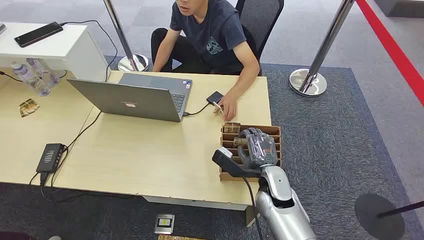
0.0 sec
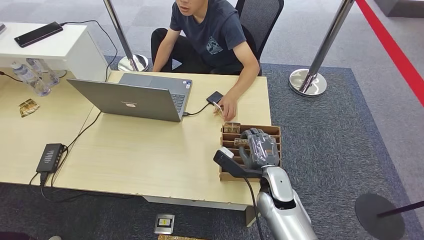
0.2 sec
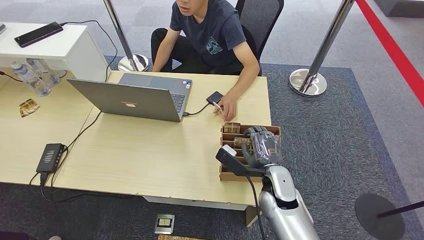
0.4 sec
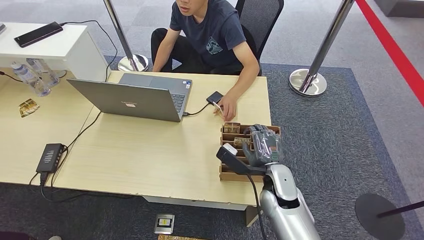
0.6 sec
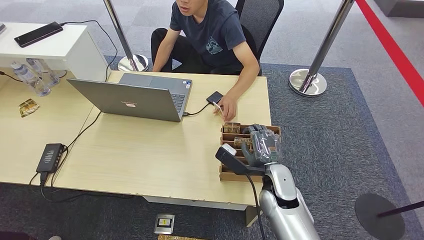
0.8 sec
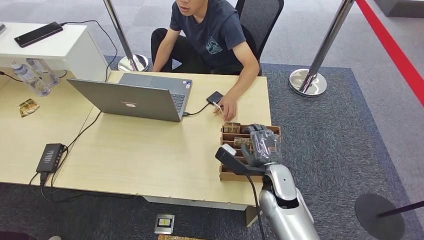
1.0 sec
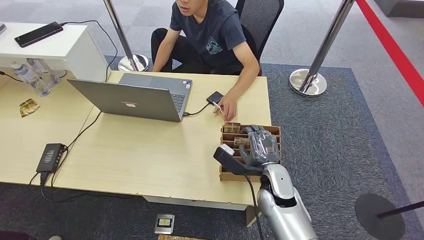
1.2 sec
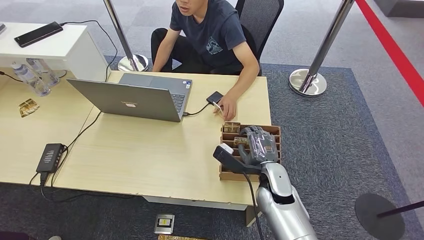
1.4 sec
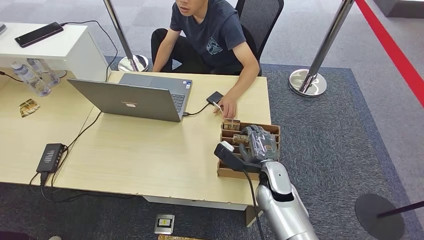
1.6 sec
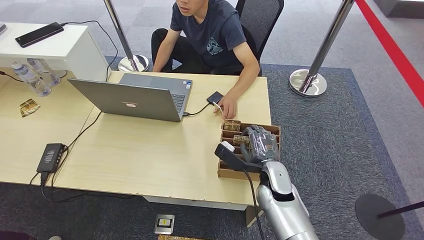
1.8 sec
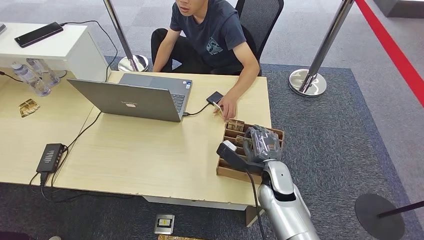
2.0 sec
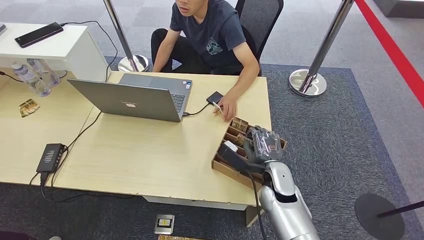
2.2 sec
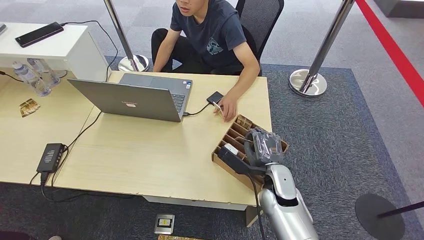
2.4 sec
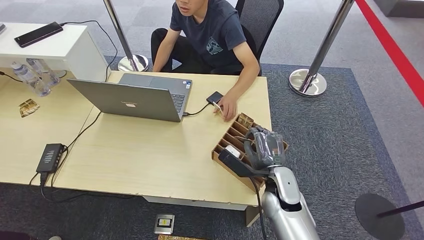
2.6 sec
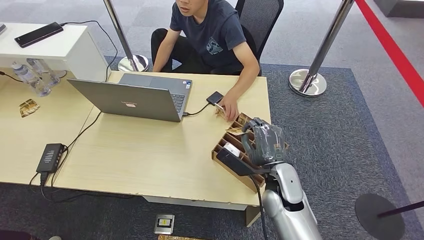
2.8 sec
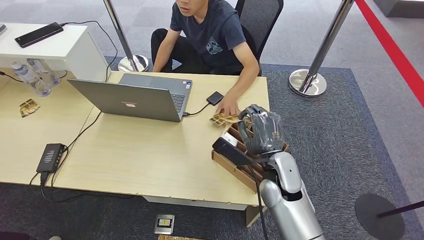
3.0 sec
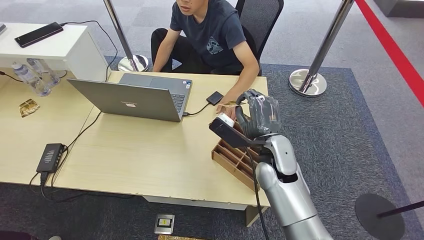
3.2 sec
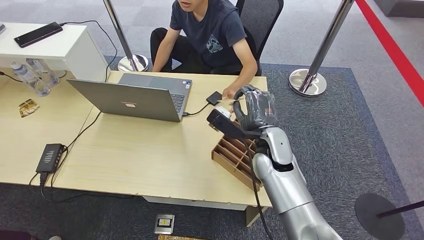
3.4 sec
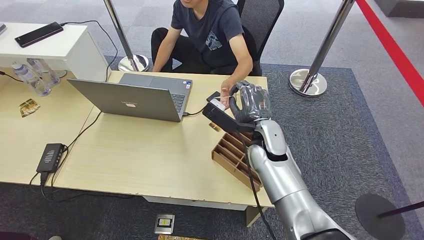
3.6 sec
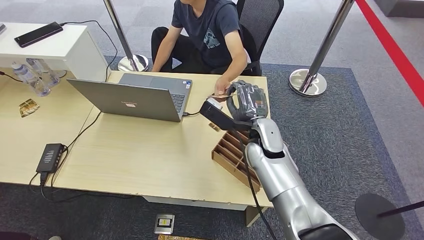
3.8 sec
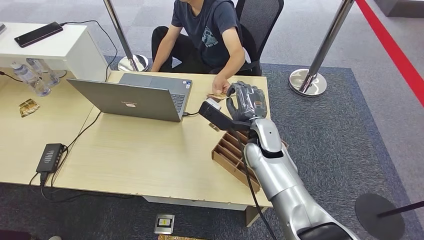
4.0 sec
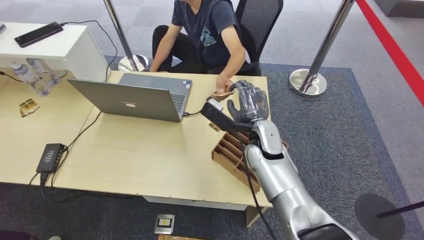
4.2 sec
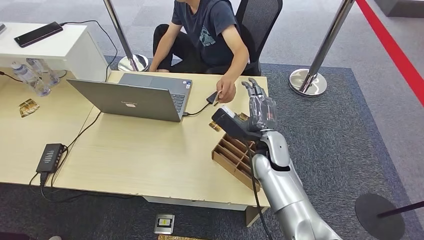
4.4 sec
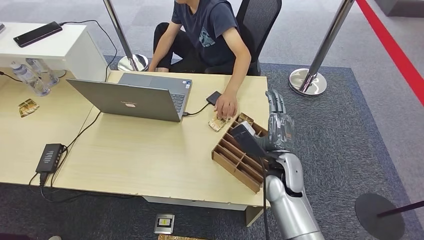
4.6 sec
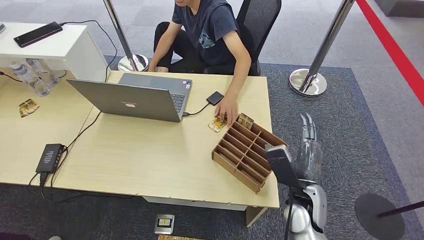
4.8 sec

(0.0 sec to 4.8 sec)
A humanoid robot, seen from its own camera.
Step, 0.0 sec - 3.0 sec: Pick up the key card from the card box.
Step, 3.2 sec - 4.8 sec: Hand the key card to the target.
1.6 sec - 3.2 sec: The right hand is displaced upward by some 10 cm.
3.2 sec - 4.8 sec: The right hand shifts some 10 cm backward, to the right and downward.
